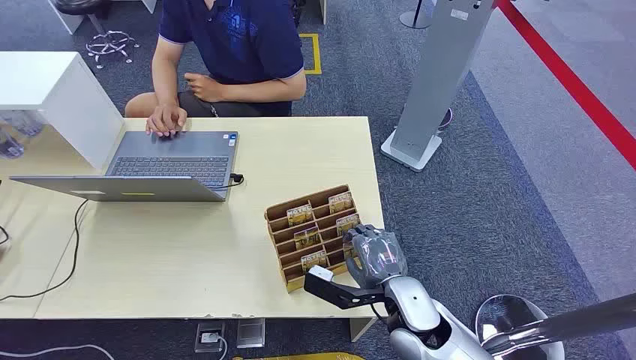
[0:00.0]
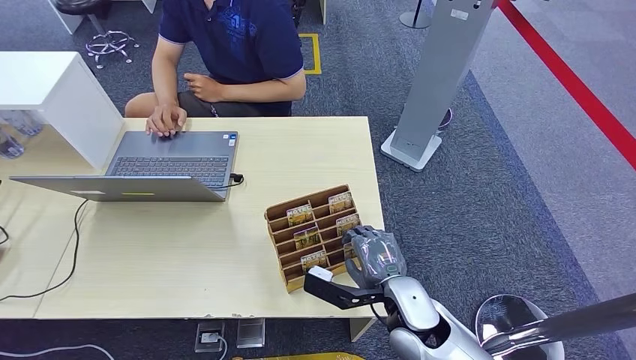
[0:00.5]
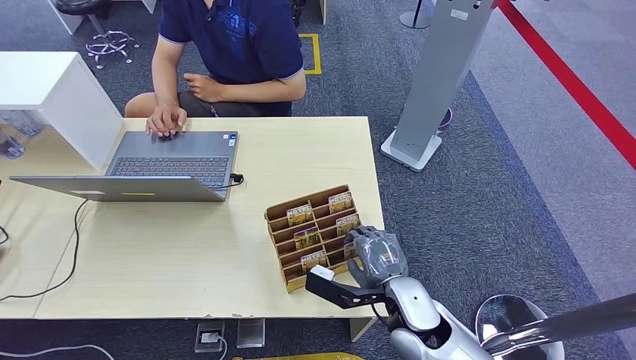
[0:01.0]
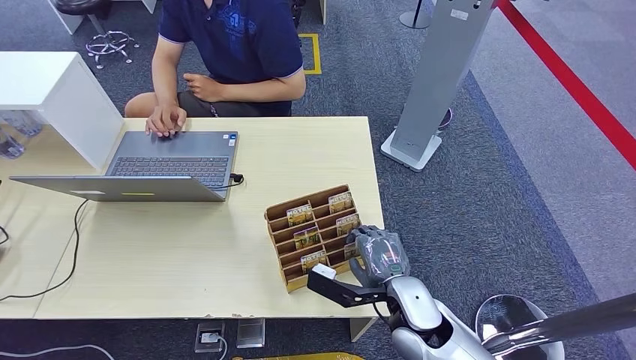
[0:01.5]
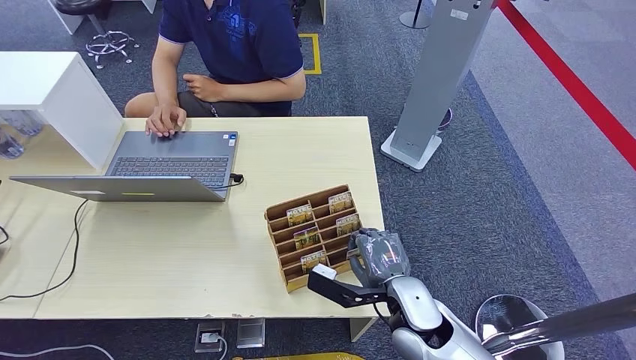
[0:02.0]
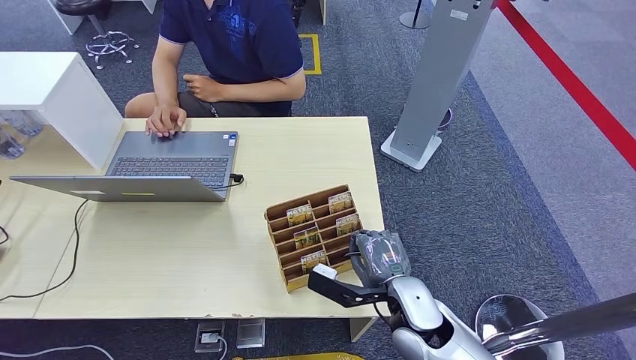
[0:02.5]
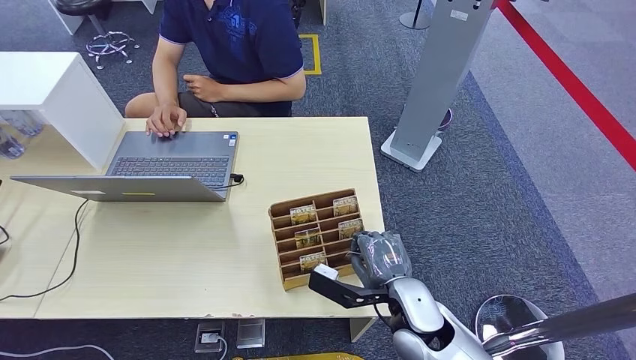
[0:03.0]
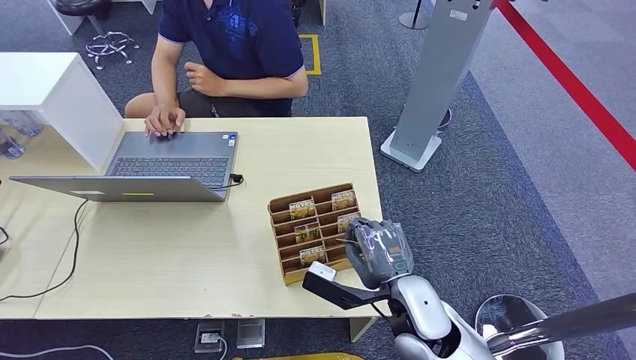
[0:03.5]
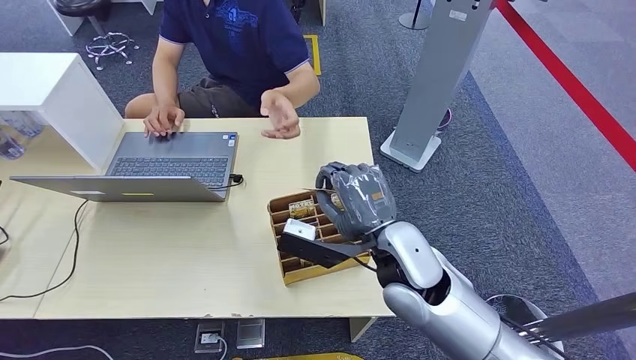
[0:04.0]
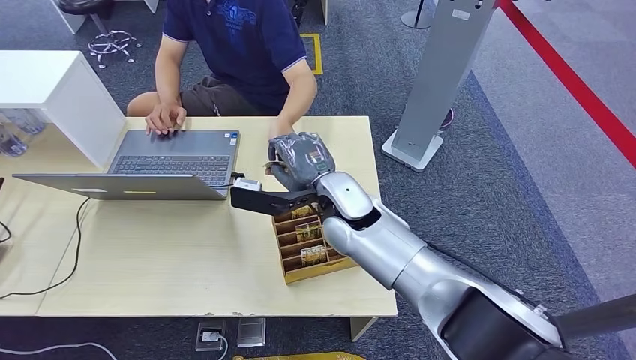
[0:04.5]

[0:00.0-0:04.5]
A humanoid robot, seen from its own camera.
Step, 0:00.0 to 0:03.5: Pick up the room card from the card holder.
Step, 0:04.0 to 0:04.5: Hand the room card to the target.
0:02.0 to 0:04.5: The right hand shifts roughly 20 cm forward, to the left and upward.
